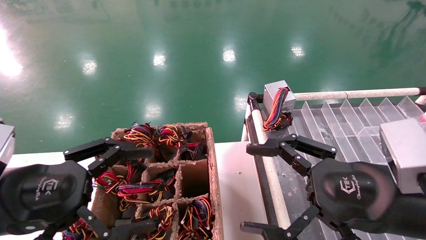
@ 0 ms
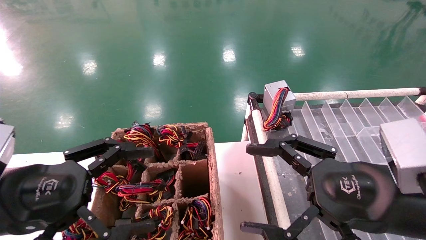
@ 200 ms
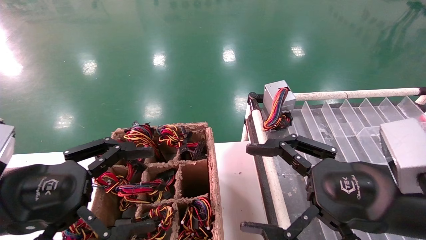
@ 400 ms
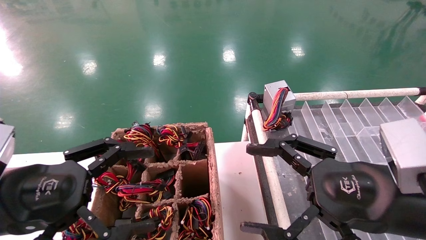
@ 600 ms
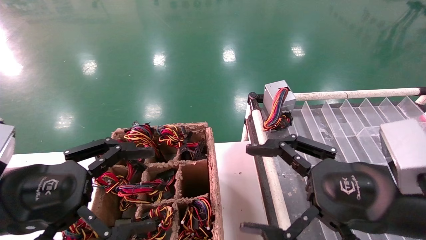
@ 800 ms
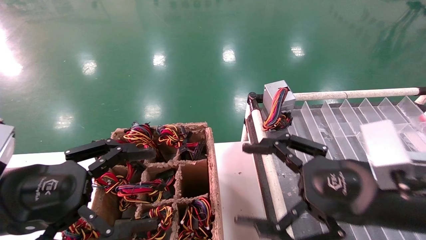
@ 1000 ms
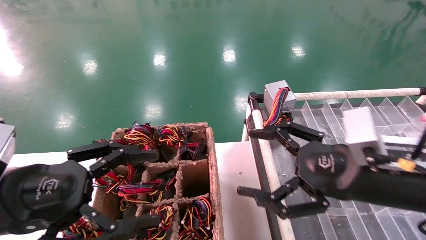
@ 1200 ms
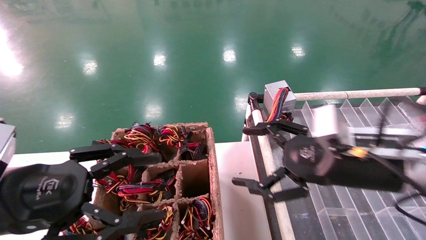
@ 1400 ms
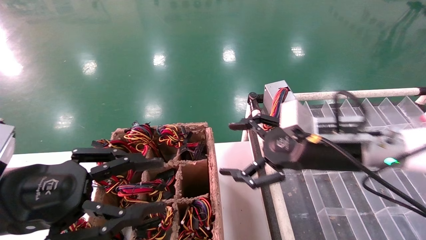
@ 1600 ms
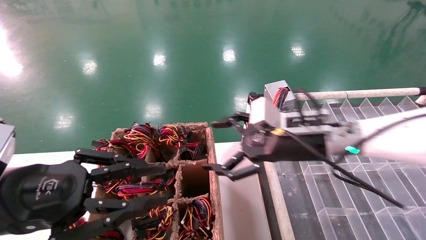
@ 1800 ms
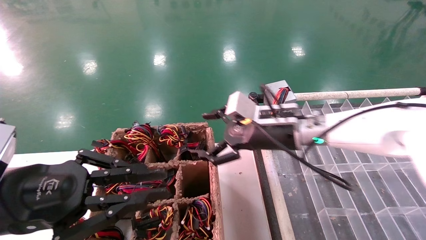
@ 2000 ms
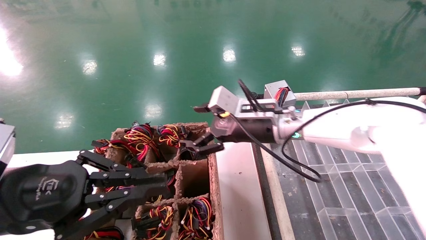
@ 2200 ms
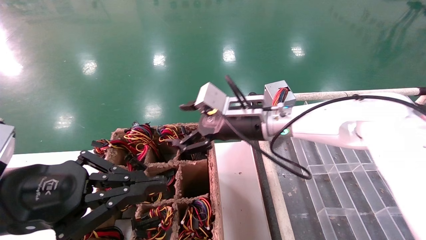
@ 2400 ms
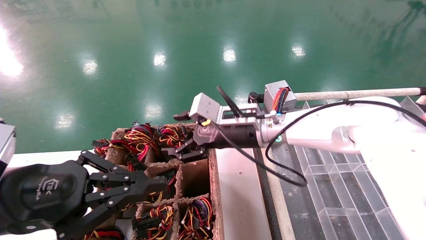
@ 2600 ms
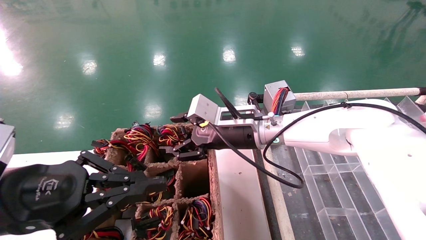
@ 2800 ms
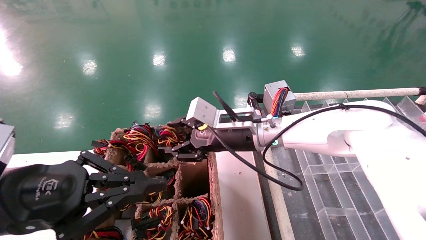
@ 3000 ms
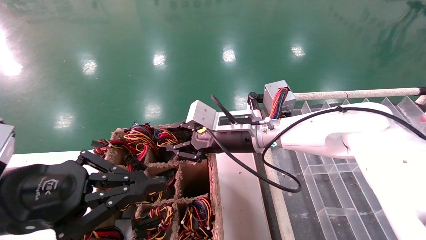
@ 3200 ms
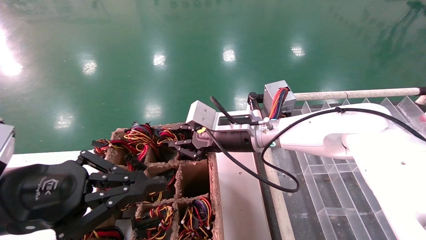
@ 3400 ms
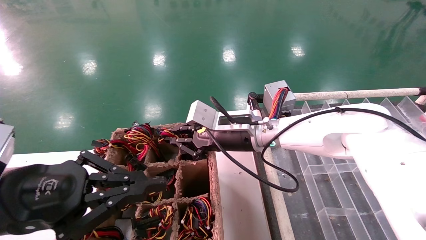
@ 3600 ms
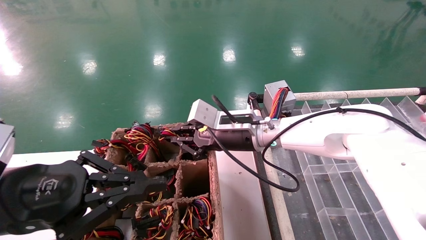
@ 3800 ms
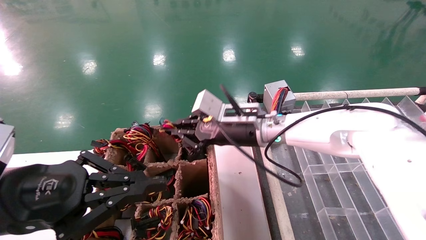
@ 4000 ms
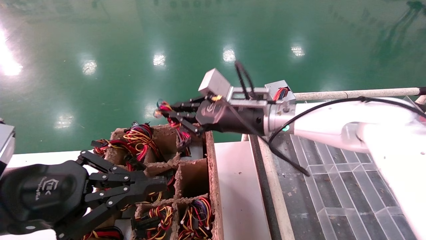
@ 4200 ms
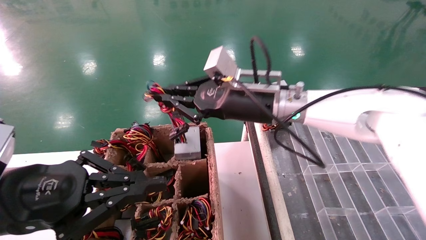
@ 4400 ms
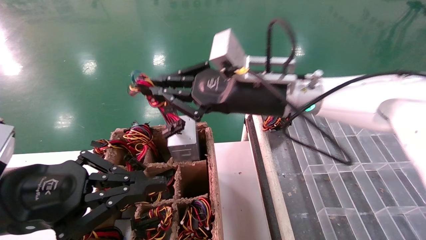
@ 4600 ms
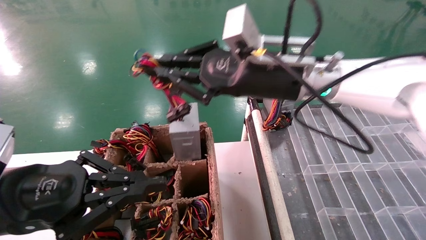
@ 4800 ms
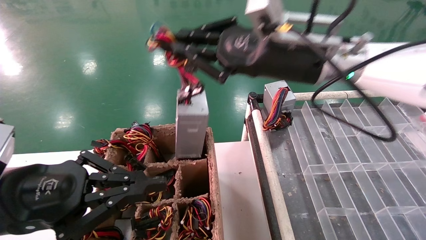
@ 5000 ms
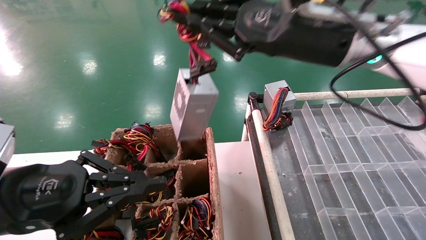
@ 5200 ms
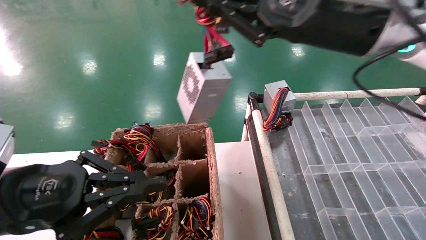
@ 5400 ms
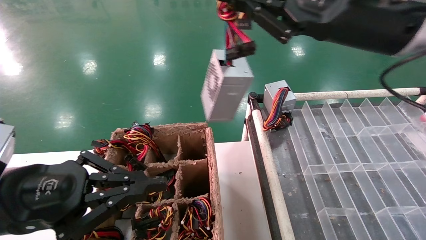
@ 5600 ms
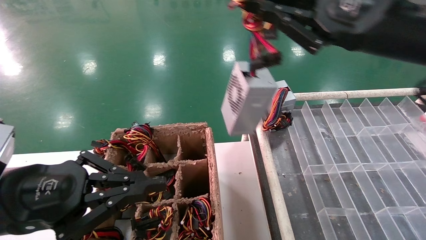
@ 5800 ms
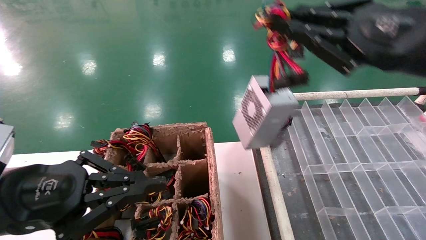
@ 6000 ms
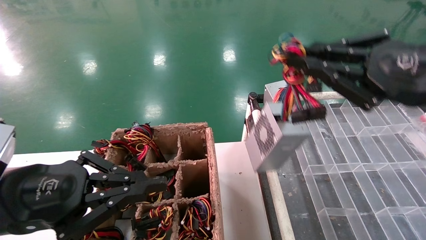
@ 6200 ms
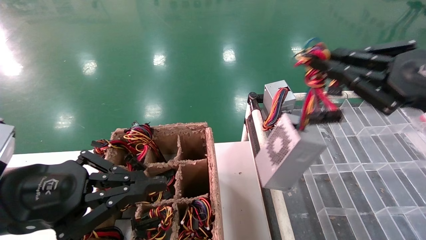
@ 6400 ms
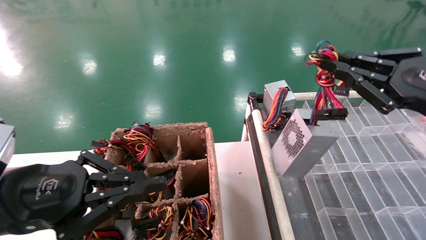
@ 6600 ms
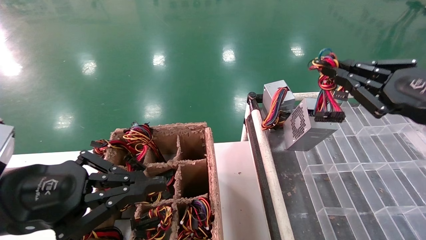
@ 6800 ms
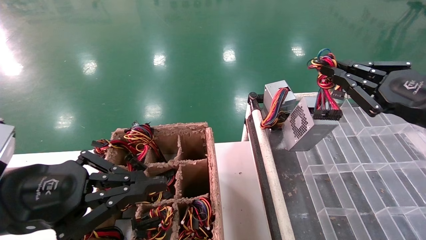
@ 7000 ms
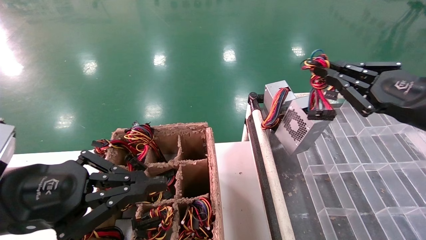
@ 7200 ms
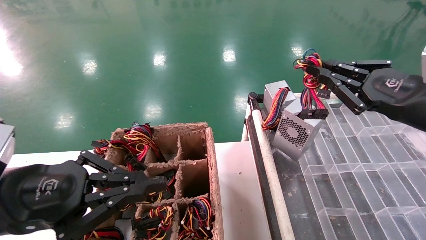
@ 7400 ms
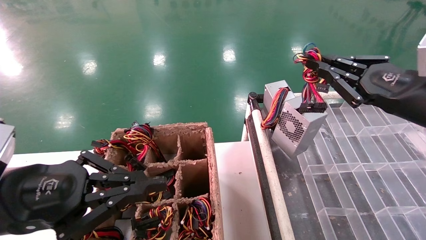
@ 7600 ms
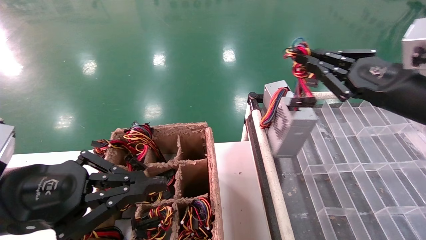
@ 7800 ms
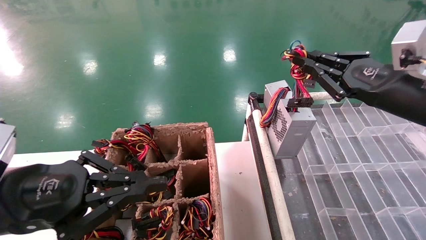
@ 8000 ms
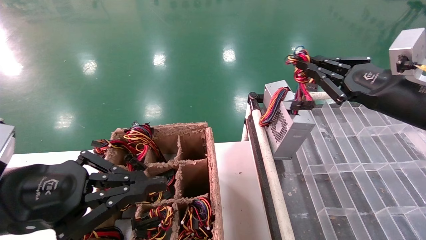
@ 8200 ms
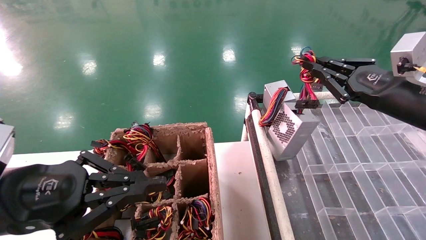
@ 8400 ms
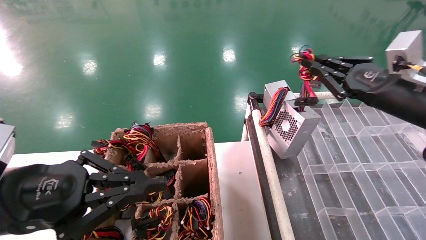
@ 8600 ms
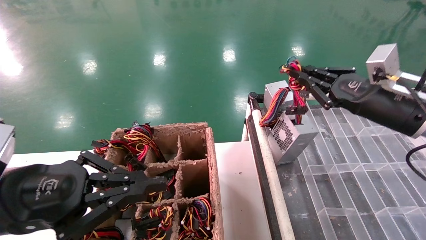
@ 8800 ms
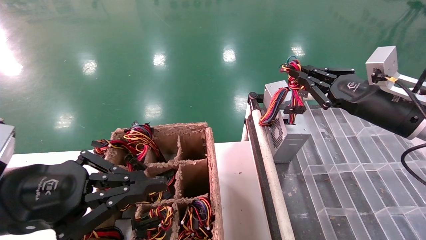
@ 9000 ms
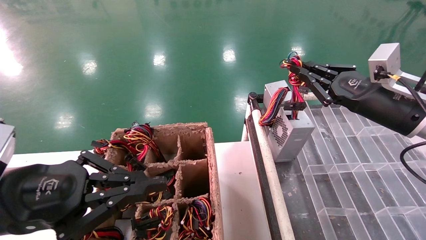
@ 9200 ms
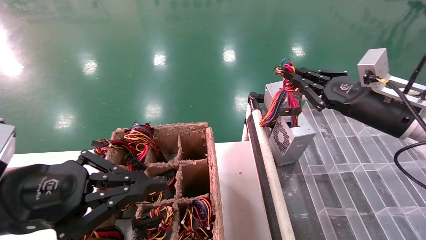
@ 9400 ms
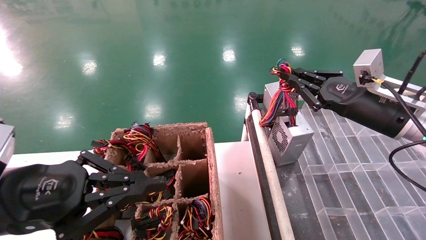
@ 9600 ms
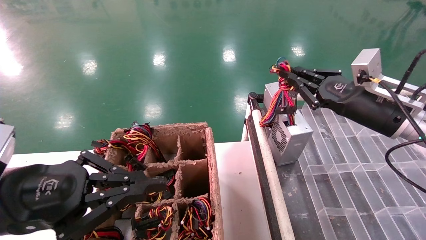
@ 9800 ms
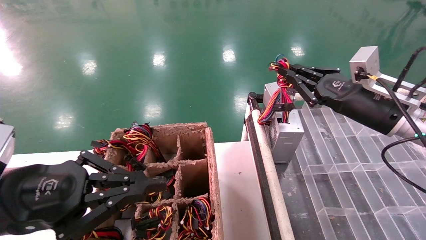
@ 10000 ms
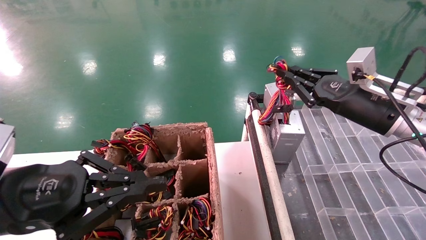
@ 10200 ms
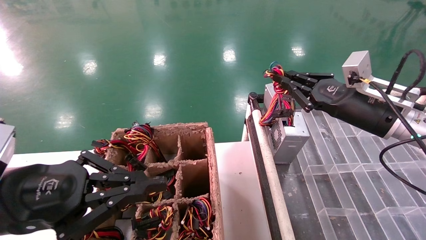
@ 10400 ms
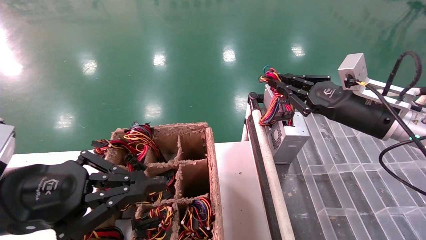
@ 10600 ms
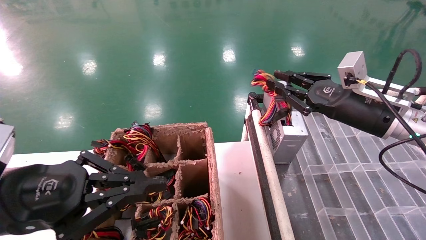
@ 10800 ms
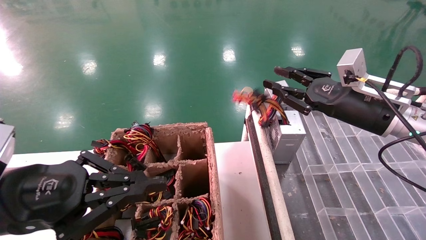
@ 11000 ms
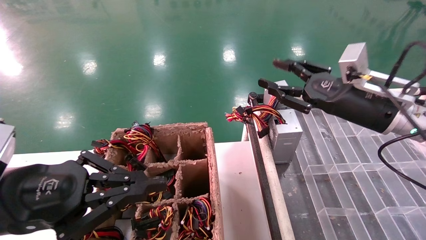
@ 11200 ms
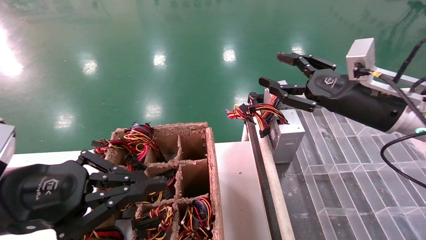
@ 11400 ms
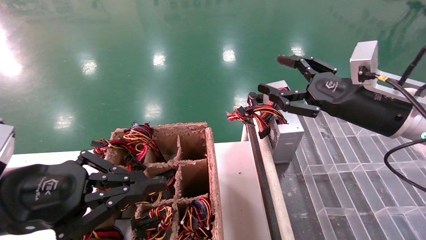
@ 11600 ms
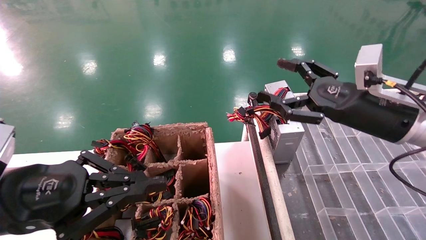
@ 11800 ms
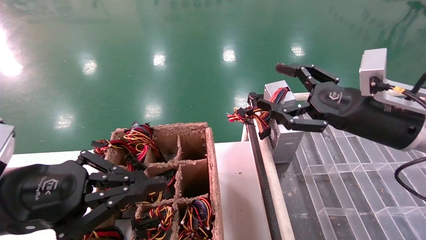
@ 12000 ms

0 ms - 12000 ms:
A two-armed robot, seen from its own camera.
Step, 1200 ms - 3600 ms: Grab the main unit power supply from the containment box.
Step, 3800 ms - 10600 ms: Place the main unit power supply in the designated area.
0 ms - 1600 ms: The right gripper is displaced forward by roughly 15 cm; the left gripper closes up.
1600 ms - 3000 ms: The right gripper shifts some 15 cm to the left and forward. Meanwhile the left gripper closes up.
3000 ms - 4400 ms: The right gripper shifts approximately 5 cm upward, and closes its fingers.
4400 ms - 6000 ms: The right gripper shifts about 25 cm to the right and backward.
6000 ms - 7600 ms: The right gripper is displaced downward by roughly 5 cm.
7600 ms - 9000 ms: The right gripper shifts about 5 cm forward.
9000 ms - 10400 ms: The grippers make only small movements.
10400 ms - 12000 ms: The right gripper moves backward, some 5 cm, and opens up.

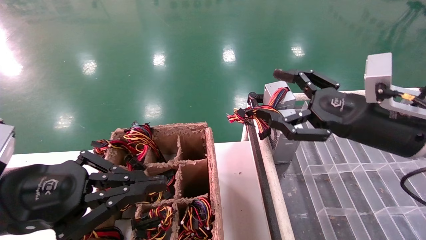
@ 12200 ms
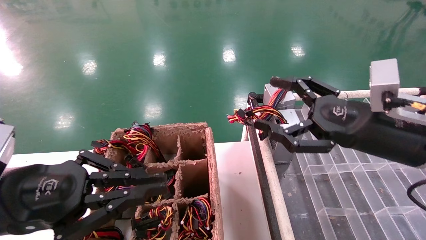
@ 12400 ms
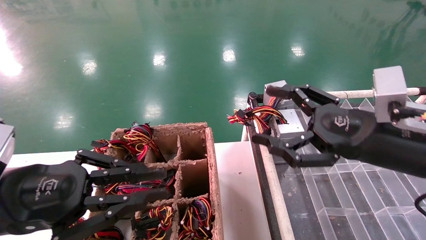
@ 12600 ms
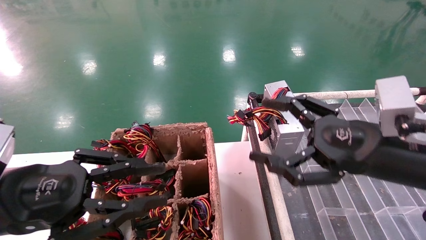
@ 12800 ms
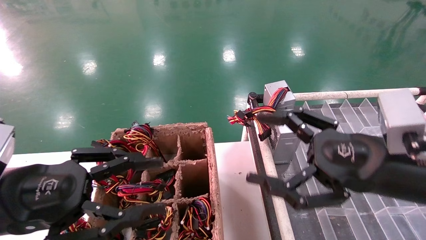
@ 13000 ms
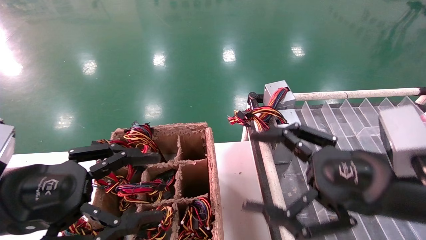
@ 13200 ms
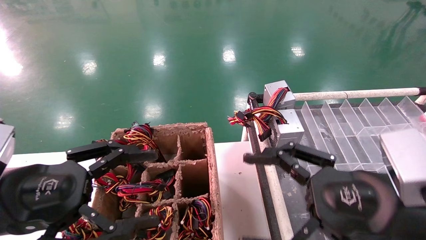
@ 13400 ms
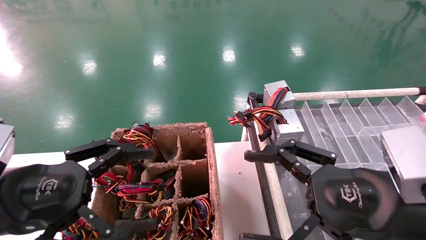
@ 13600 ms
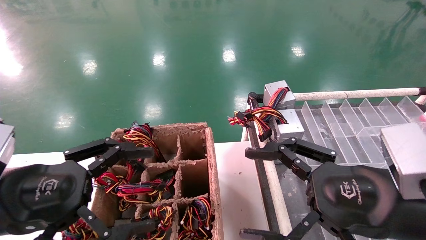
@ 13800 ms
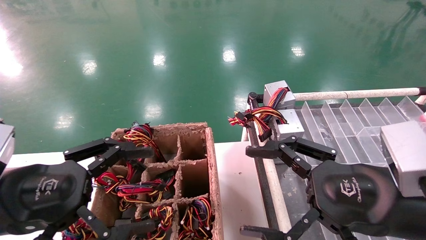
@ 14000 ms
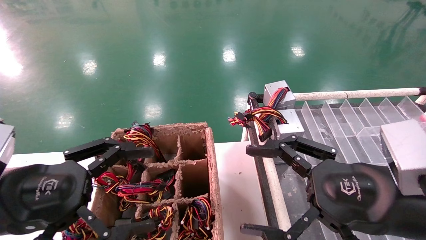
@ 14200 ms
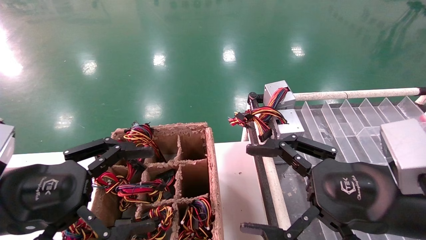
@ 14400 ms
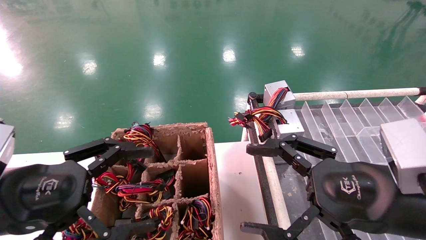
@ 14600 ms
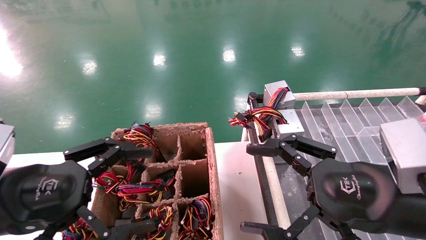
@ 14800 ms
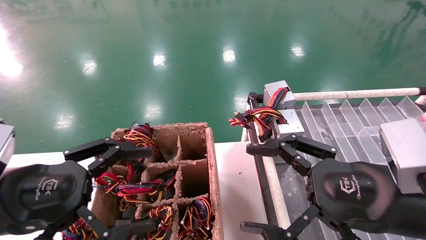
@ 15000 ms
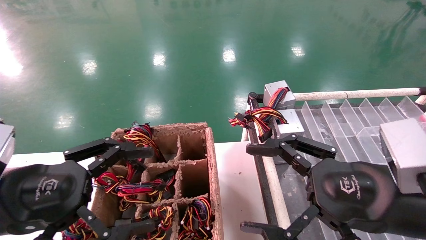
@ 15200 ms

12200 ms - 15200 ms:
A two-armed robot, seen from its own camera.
12200 ms - 13800 ms: The right gripper travels backward by approximately 10 cm; the left gripper opens.
13800 ms - 15200 ms: The two grippers keep their place.
